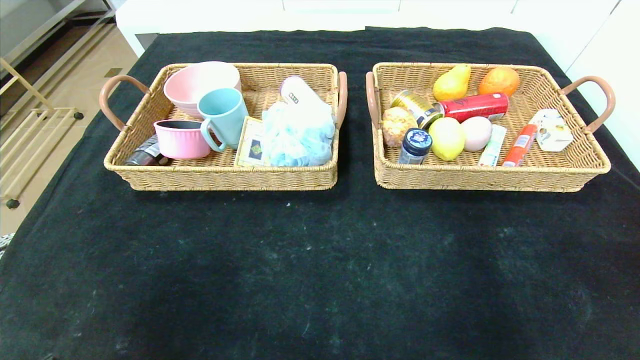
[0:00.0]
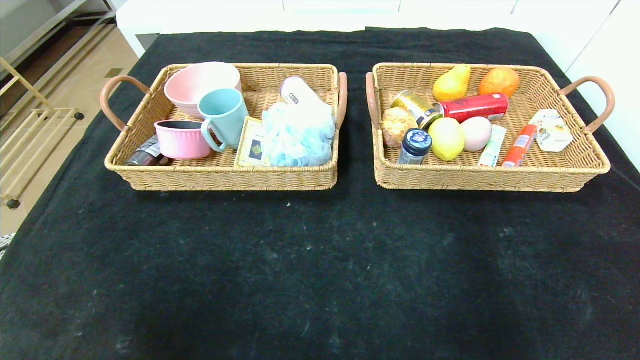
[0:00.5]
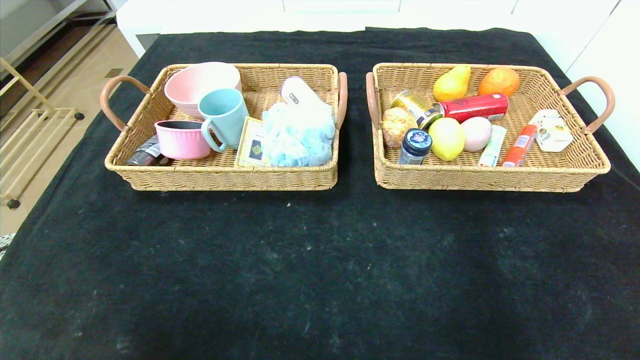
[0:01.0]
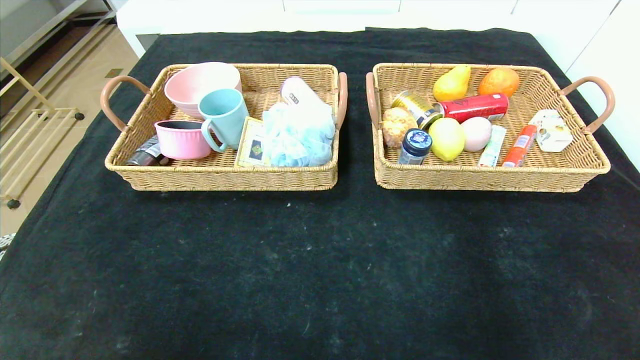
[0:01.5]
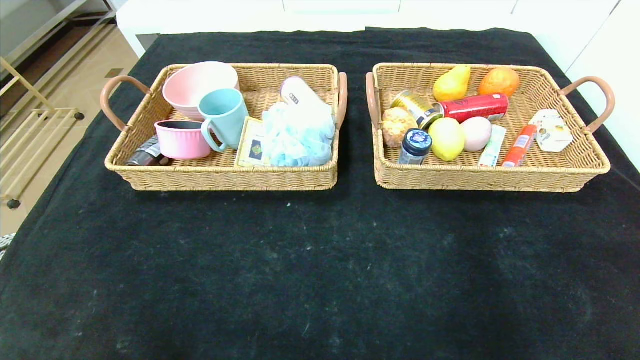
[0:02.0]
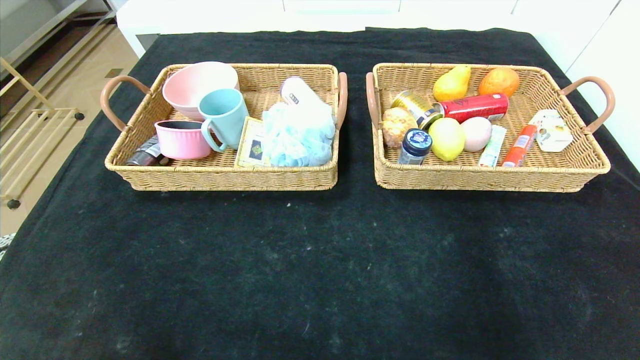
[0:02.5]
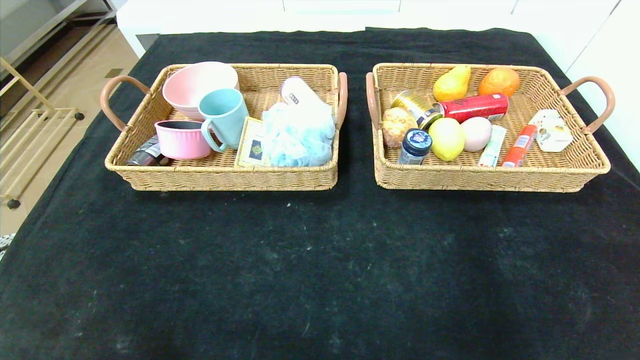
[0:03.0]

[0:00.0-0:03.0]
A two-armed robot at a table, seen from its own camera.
0:00.0 to 0:01.5: The right gripper goes some 10 cm downward and backward, while the left gripper travels backward and downward by approximately 10 cm.

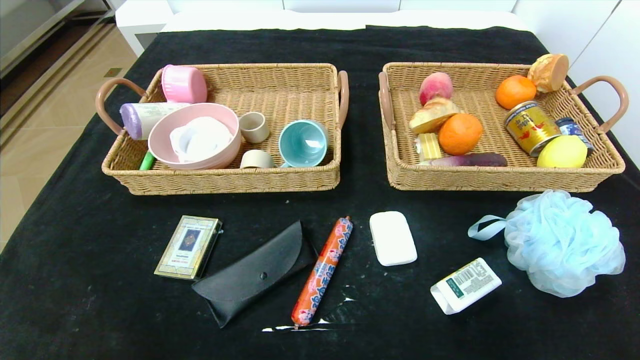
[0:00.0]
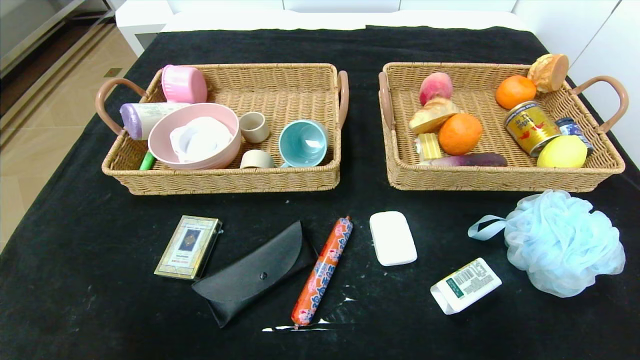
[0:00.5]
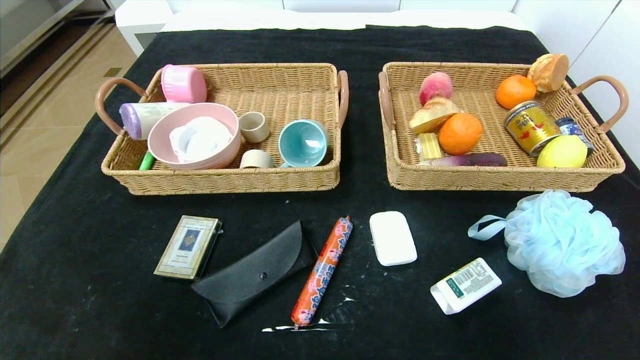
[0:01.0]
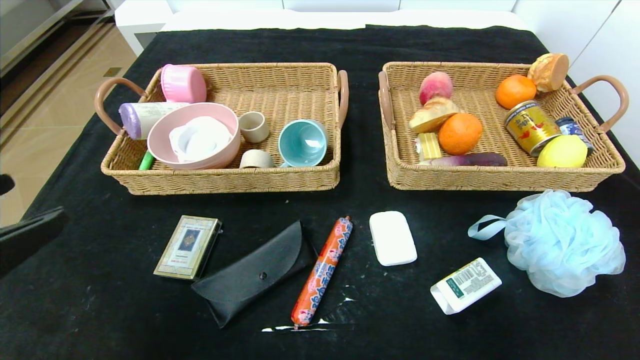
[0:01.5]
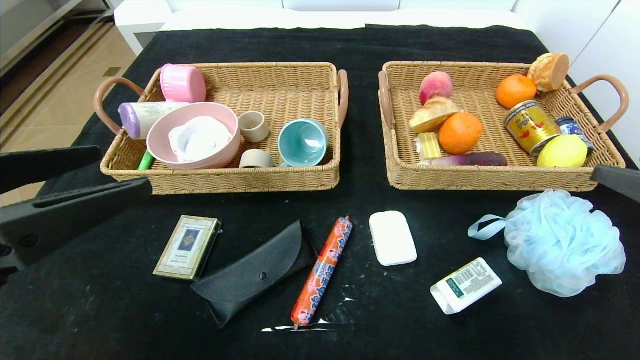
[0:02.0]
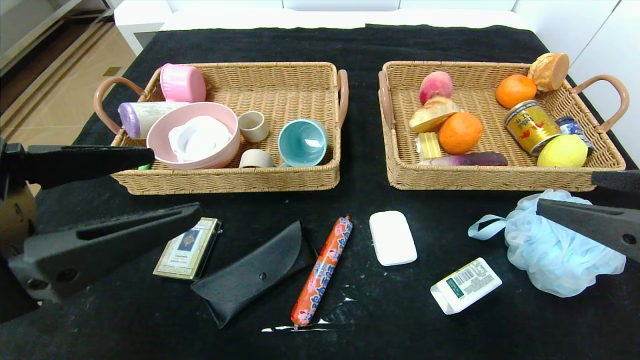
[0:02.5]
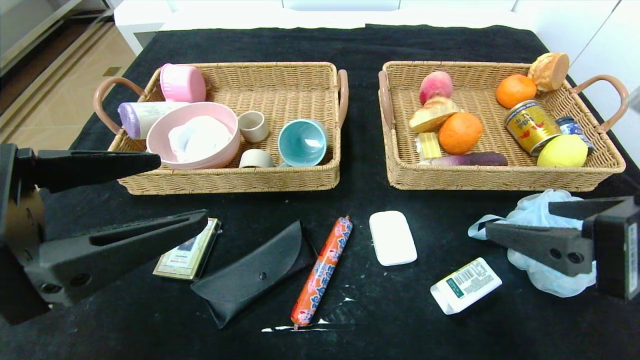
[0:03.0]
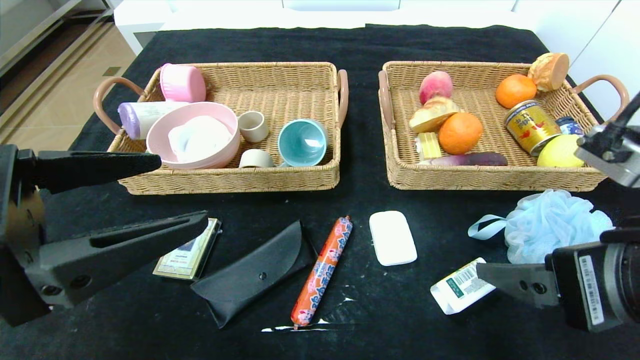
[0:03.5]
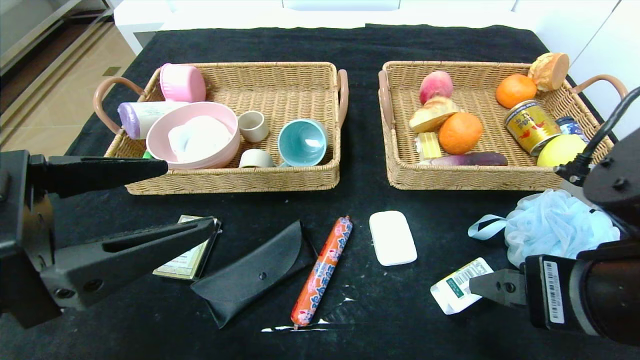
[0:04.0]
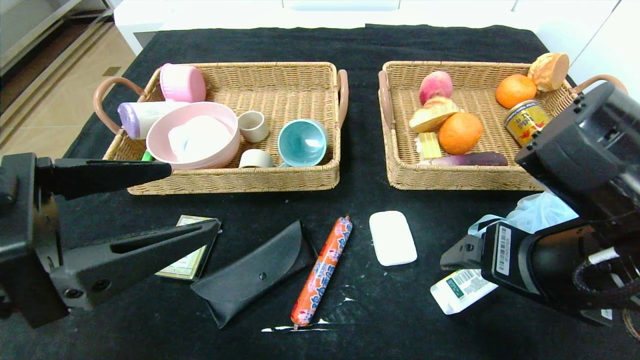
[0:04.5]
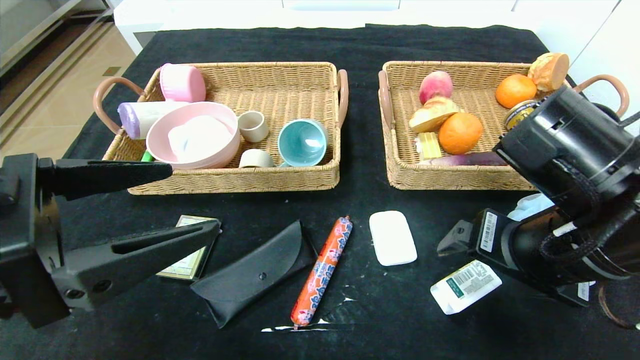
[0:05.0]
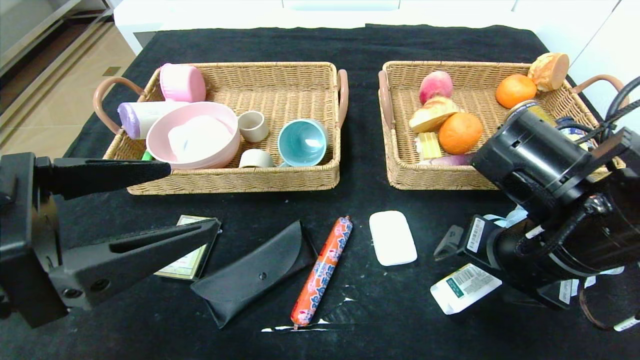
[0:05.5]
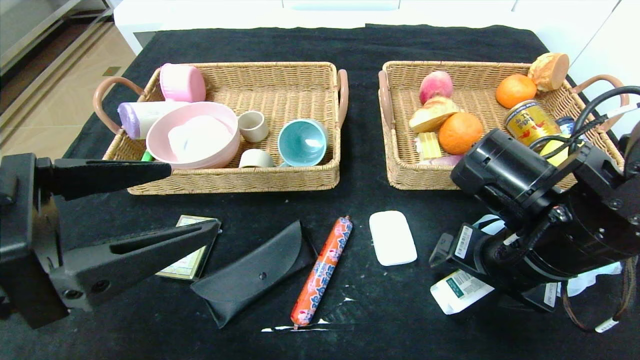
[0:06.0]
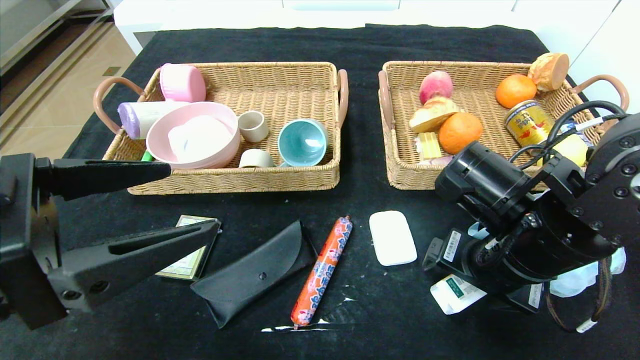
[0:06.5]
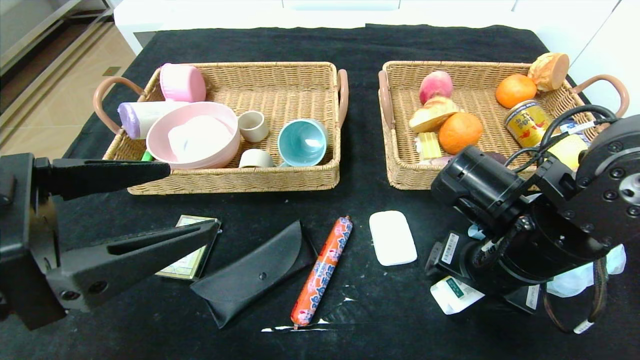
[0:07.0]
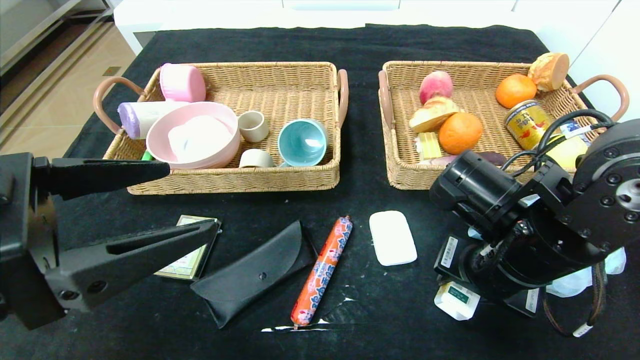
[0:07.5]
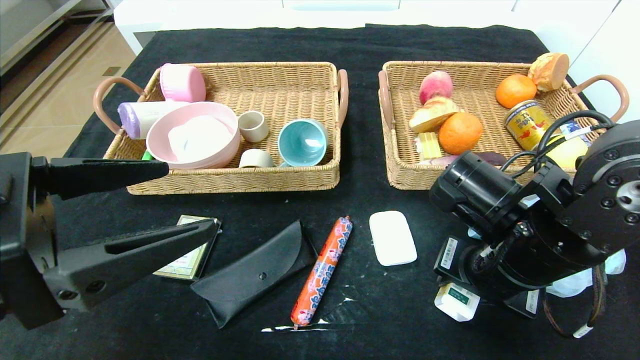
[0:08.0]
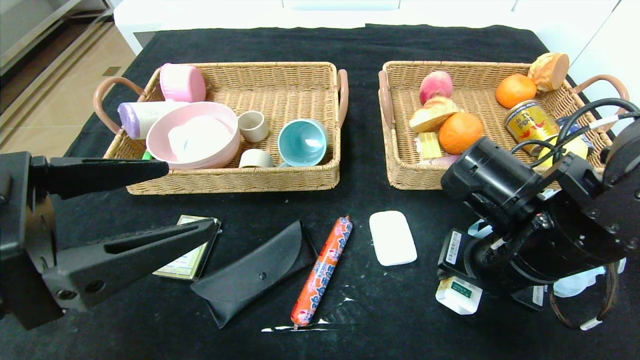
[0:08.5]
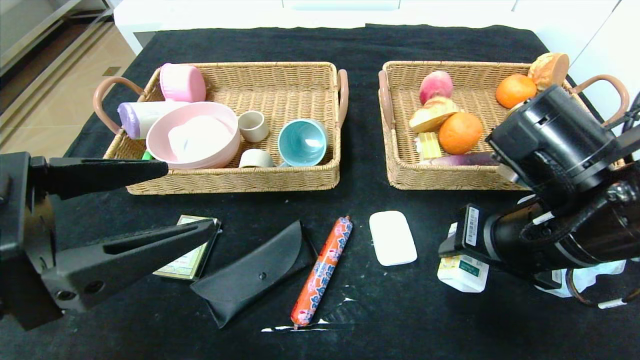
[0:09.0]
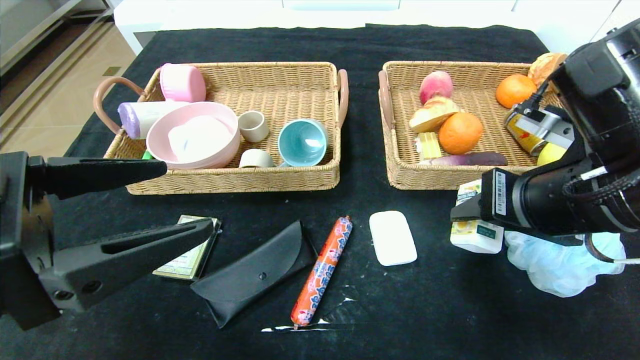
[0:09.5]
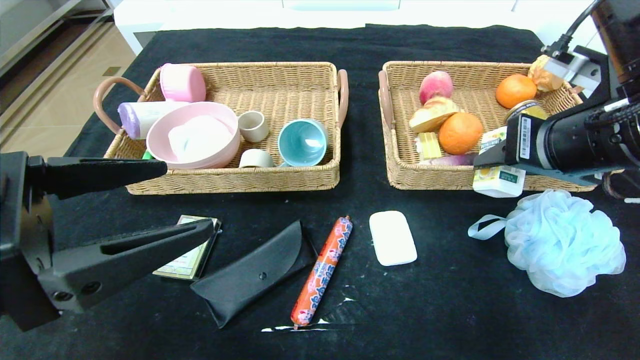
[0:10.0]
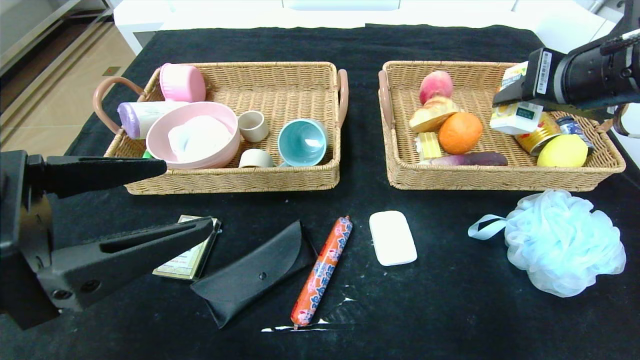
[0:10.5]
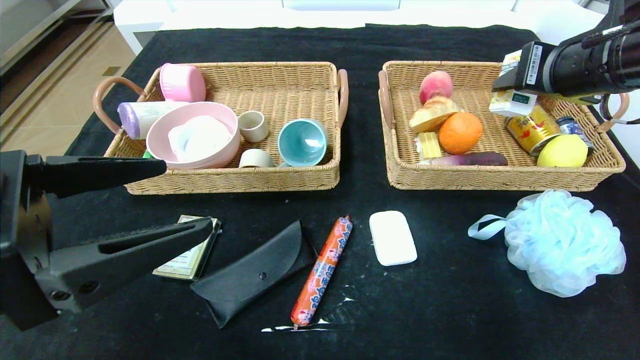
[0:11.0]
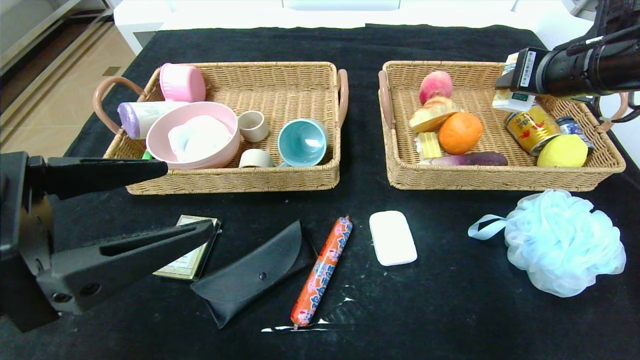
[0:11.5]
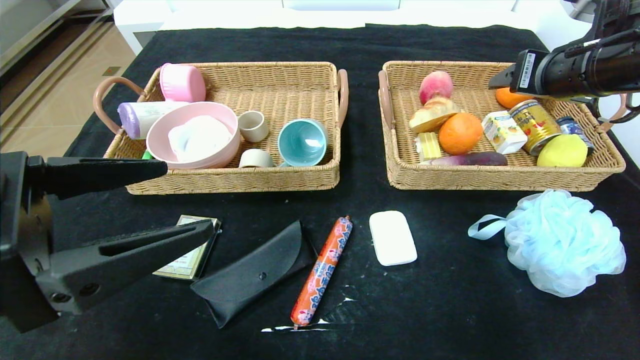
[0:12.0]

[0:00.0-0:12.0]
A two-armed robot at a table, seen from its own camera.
Step, 0:00.0 to 0:12.0: Grasp the square chewing gum and put it in the right basket.
0:00.0 to 0:02.0: Both grippers move upward and forward, approximately 25 cm.
0:02.0 to 0:04.0: The right gripper heads to the left, covering approximately 10 cm.
0:04.0 to 0:06.0: The right gripper moves forward, roughly 10 cm.
0:06.0 to 0:08.0: The right gripper closes.
0:08.0 to 0:10.0: The right gripper moves upward and to the right, roughly 15 cm.
0:10.0 to 0:12.0: The right gripper is displaced forward by roughly 10 cm, and opens.

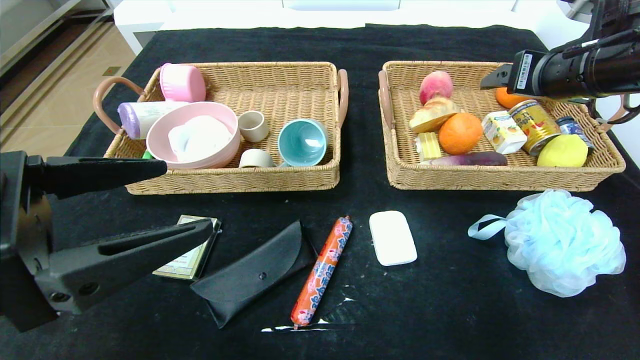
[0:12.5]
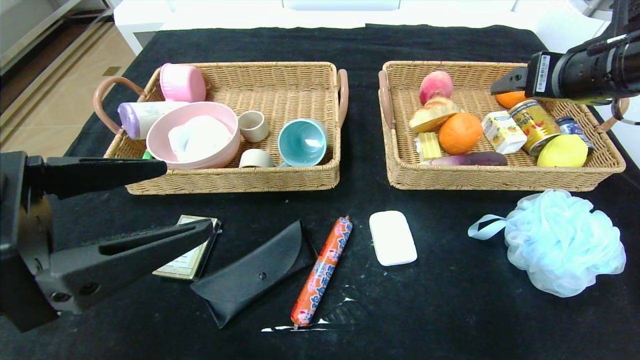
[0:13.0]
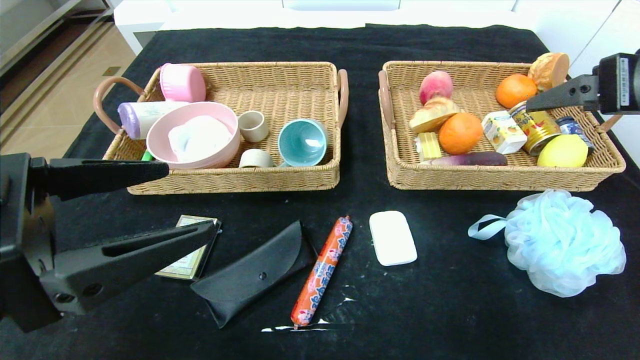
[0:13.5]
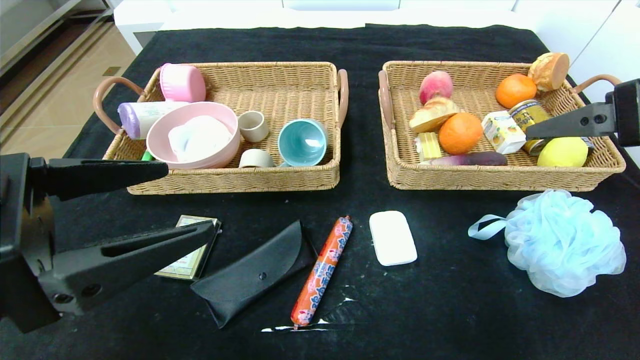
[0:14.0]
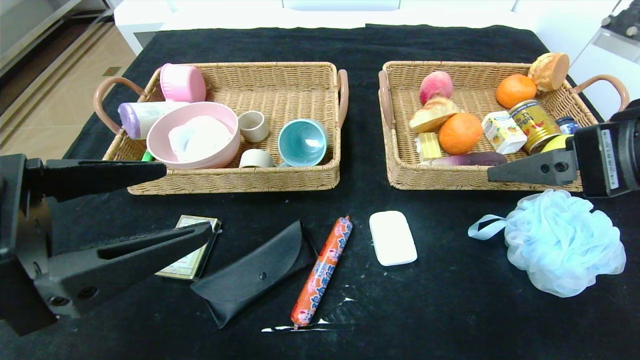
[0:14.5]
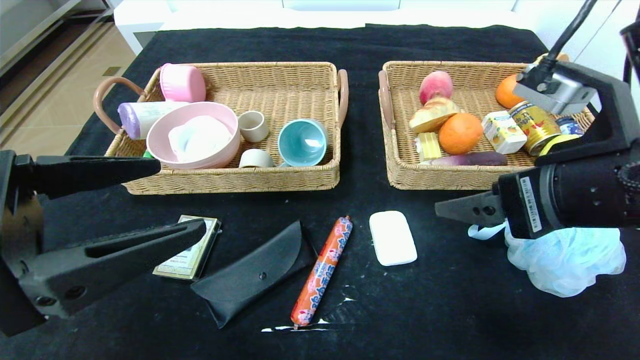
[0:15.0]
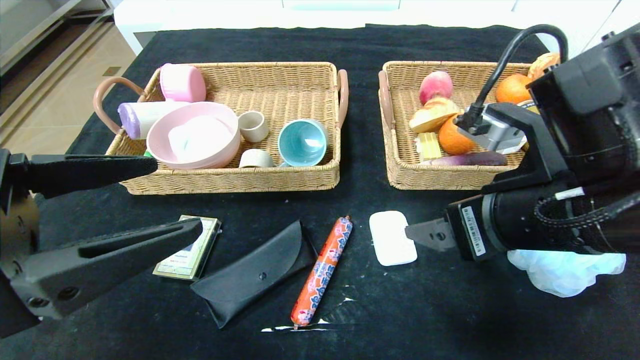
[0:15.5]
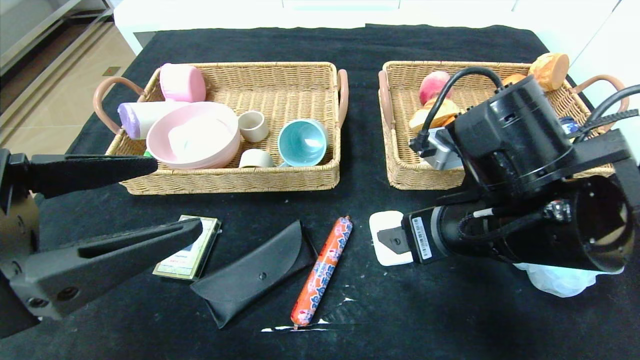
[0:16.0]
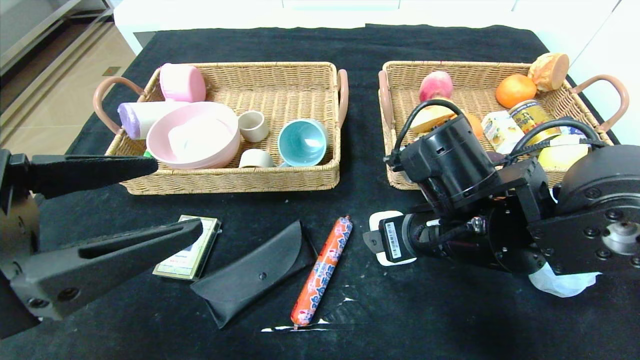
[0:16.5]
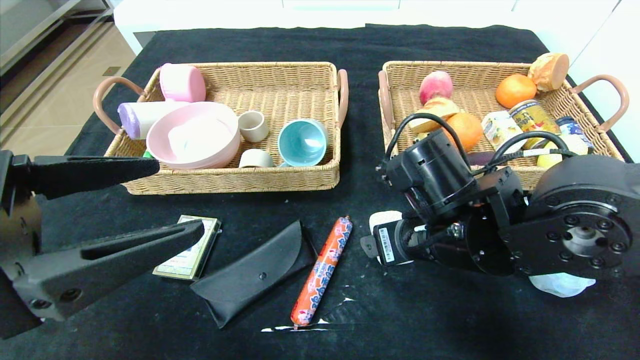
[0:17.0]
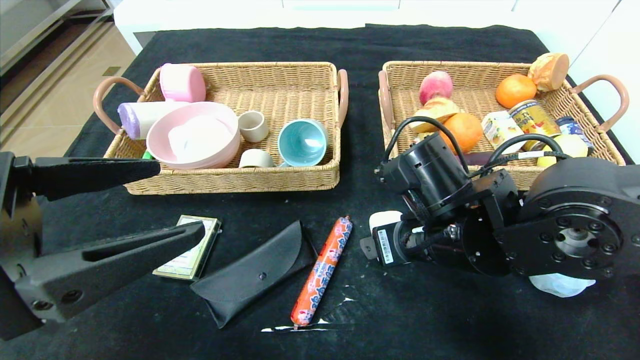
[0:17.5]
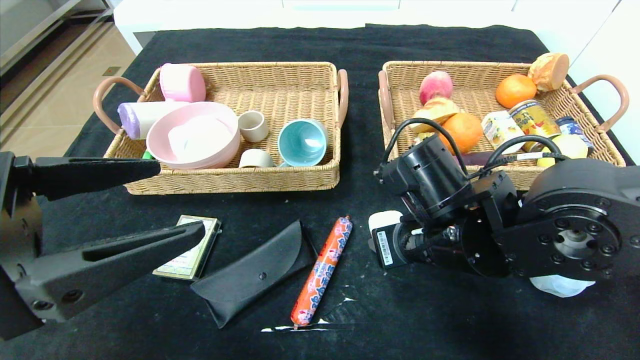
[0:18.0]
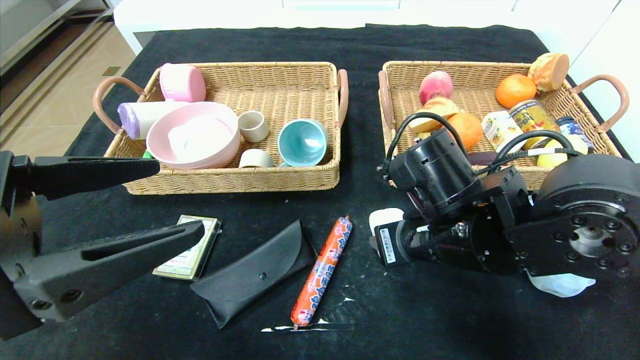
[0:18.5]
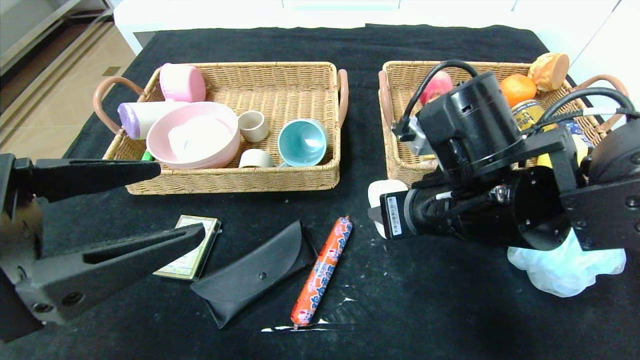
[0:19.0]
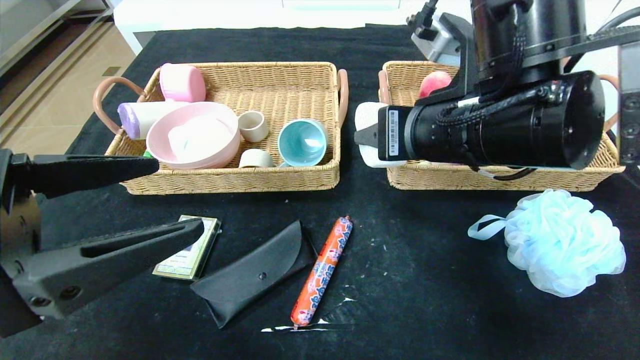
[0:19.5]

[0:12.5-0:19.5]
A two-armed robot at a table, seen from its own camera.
0:12.5 to 0:14.5: The right gripper heads backward, covering some 15 cm.
0:14.5 to 0:16.0: The right gripper travels to the left and downward by about 15 cm.
0:16.0 to 0:17.5: The right gripper ends up about 5 cm from where it was.
0:17.5 to 0:19.5: The right gripper goes roughly 10 cm upward, and closes up.
